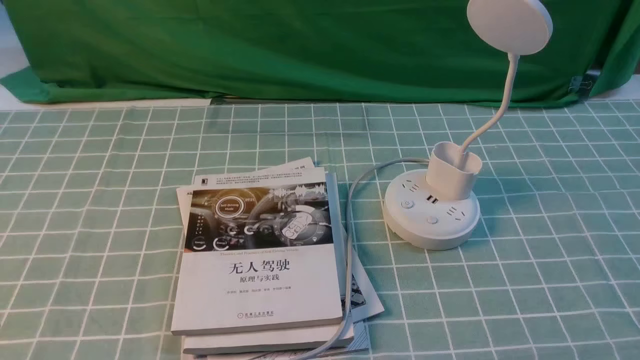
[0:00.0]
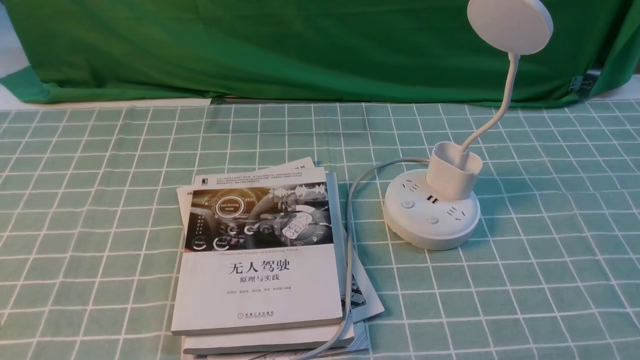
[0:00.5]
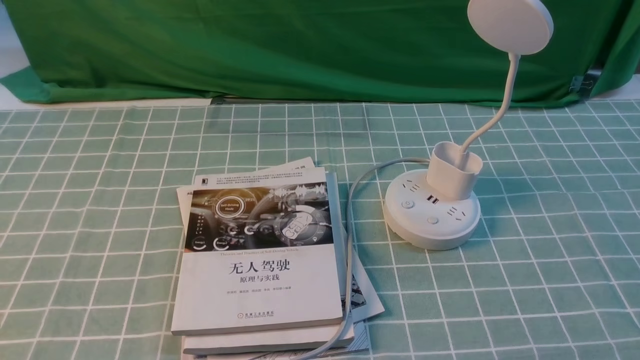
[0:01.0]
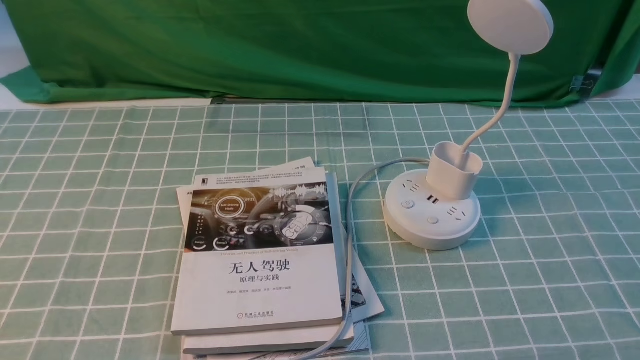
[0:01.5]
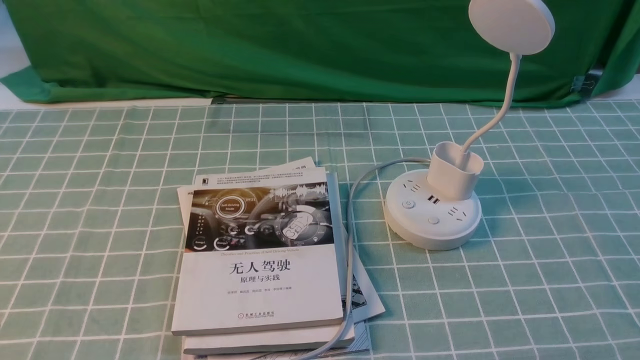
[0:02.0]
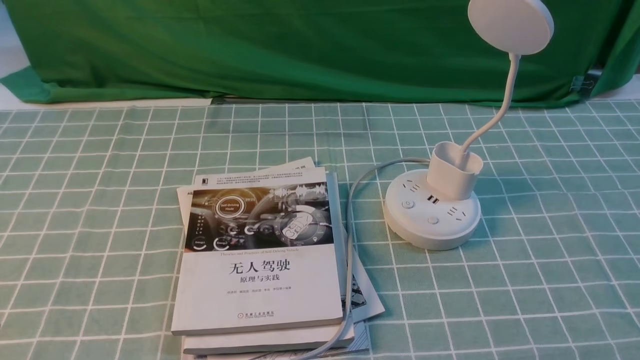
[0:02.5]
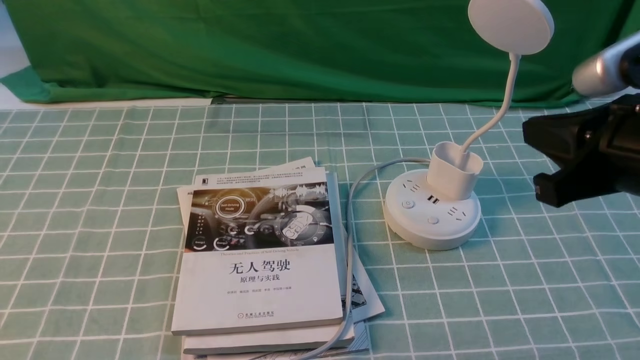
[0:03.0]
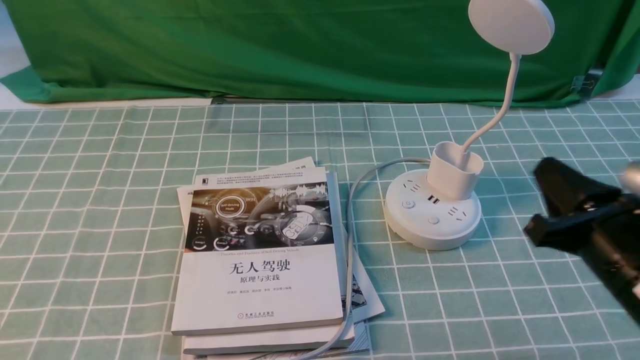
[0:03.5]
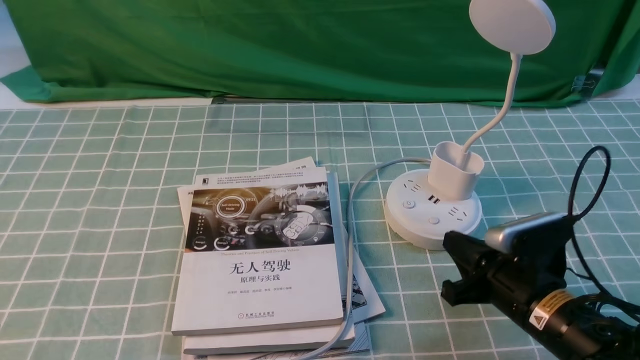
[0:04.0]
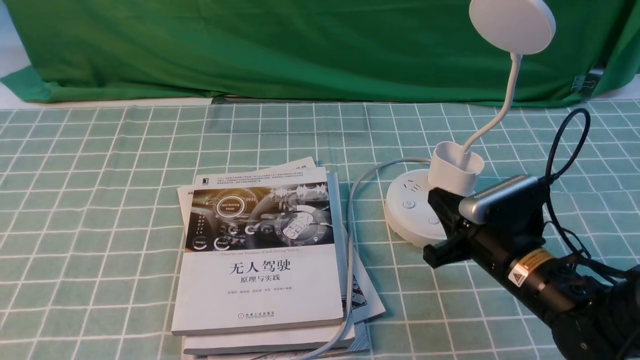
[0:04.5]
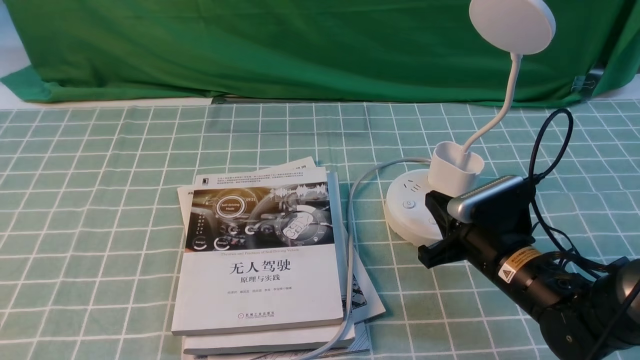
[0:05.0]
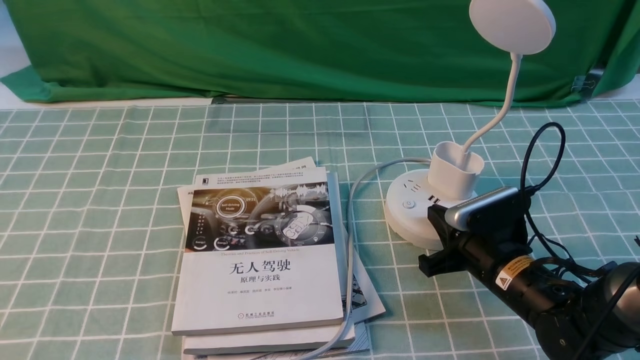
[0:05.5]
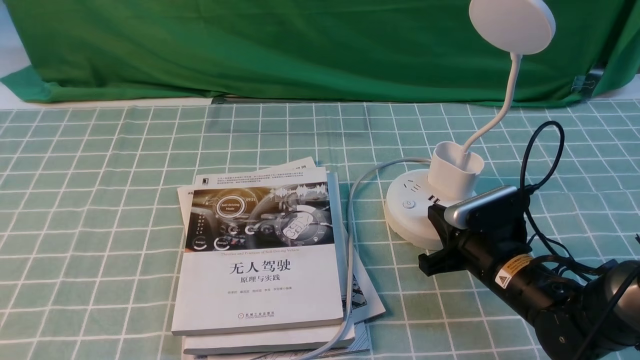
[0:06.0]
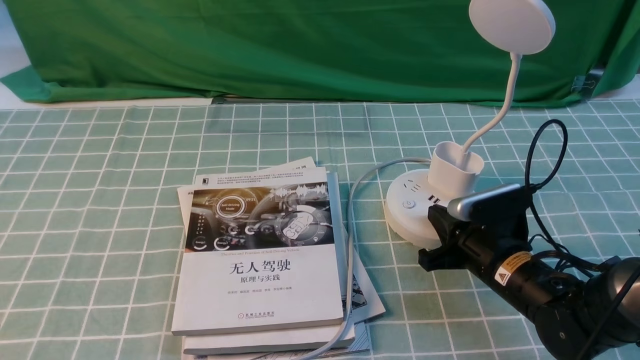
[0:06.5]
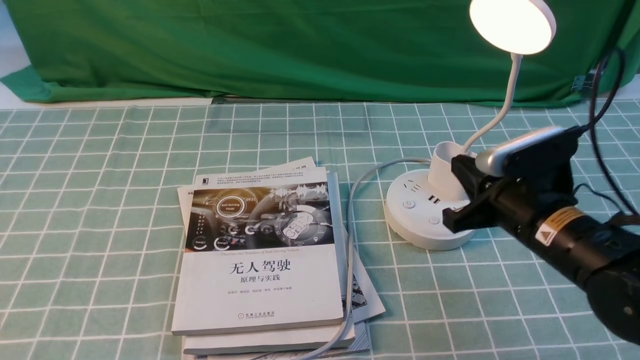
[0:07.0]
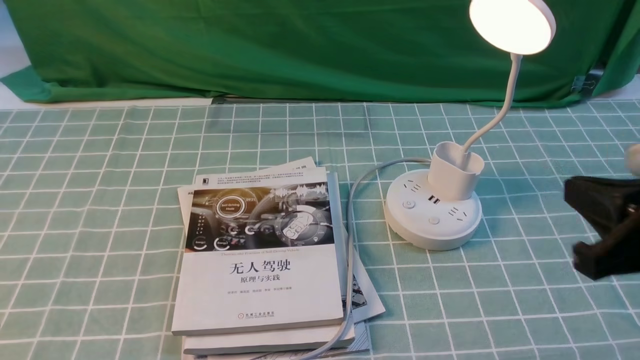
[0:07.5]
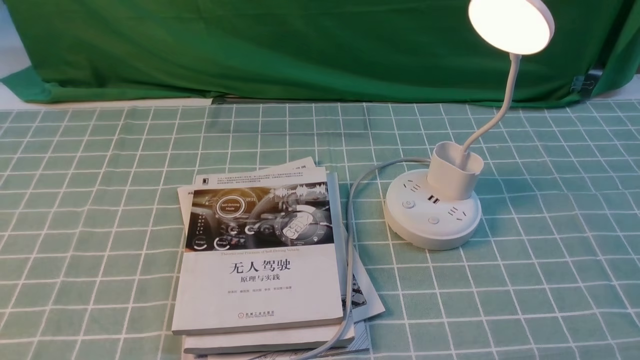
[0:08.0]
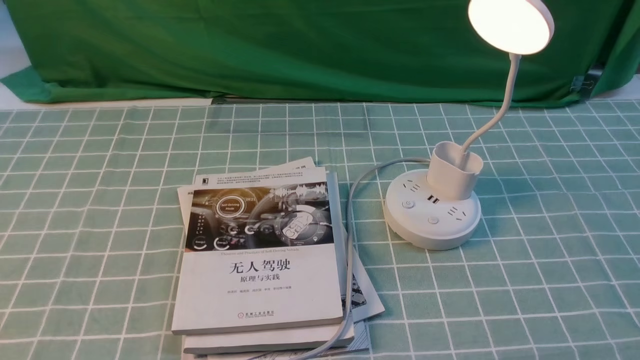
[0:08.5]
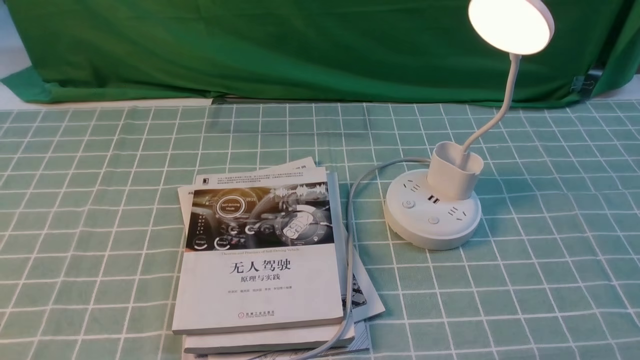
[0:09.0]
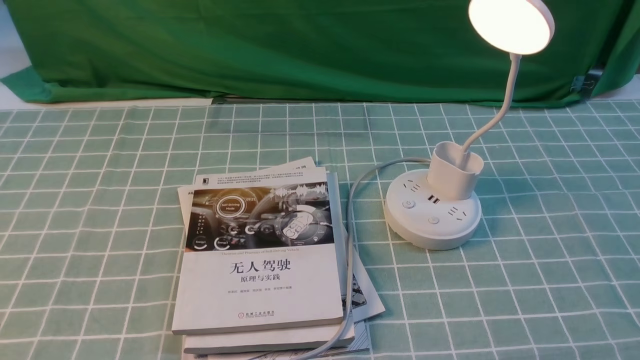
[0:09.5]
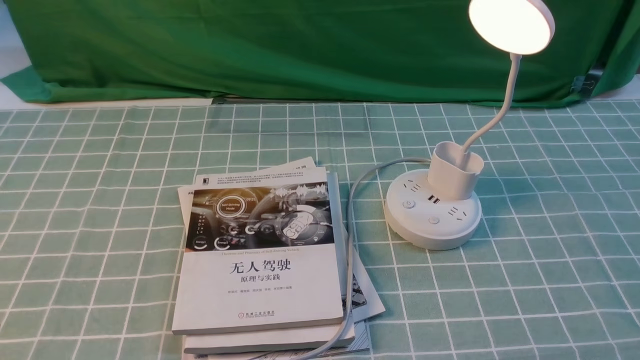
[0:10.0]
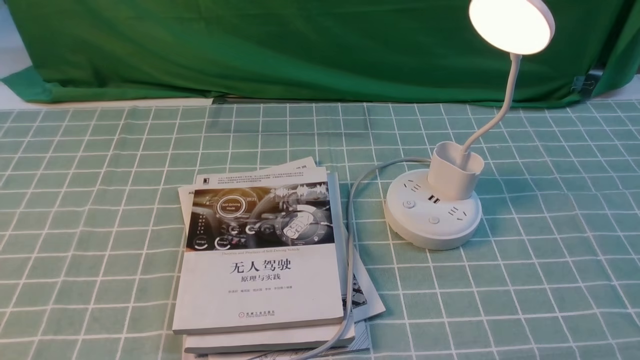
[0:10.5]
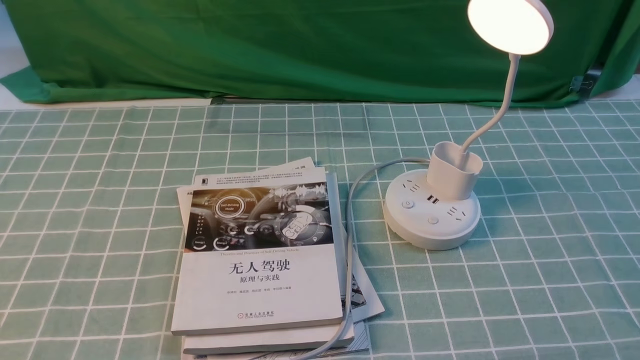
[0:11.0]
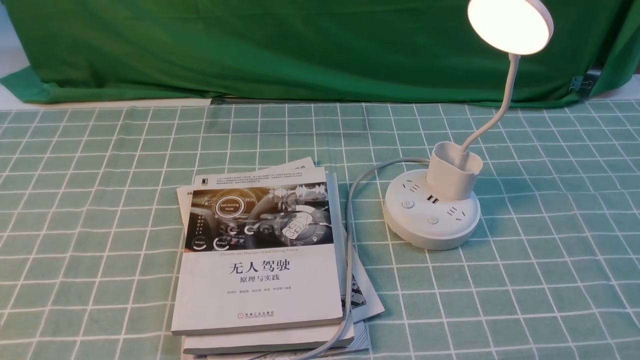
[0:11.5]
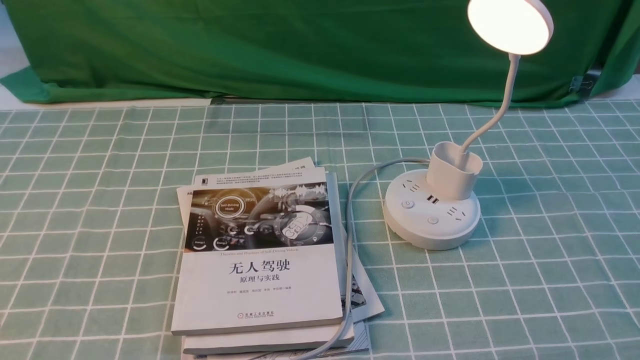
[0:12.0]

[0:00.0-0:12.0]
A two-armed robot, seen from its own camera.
Step, 0:00.0 to 0:06.5: use the right arm to press the button switch on the lamp holder.
0:02.0 to 0:04.0: The right gripper heads forward, downward and to the left, covering about 25 cm, and closes up.
0:04.0 to 0:06.0: The right gripper heads forward, covering some 5 cm.
0:06.0 to 0:08.0: The right gripper is displaced backward, upward and to the right by some 35 cm.
0:10.0 to 0:12.0: The two grippers keep their place.

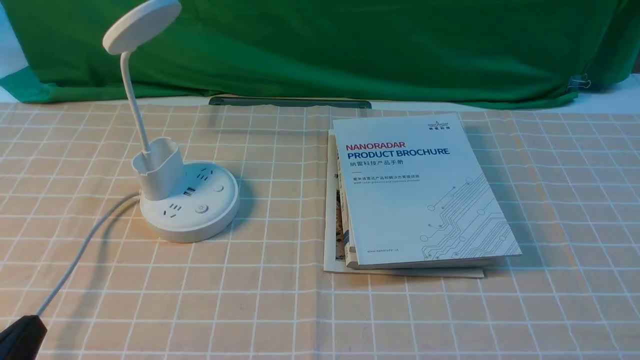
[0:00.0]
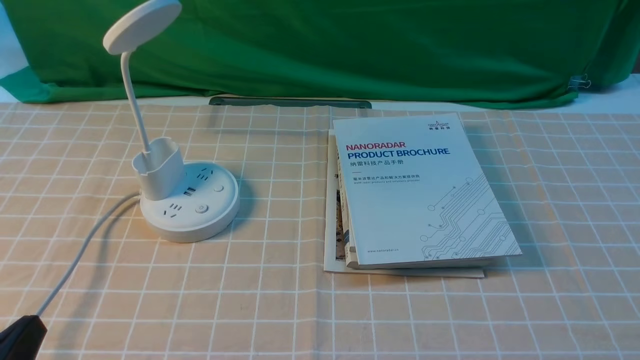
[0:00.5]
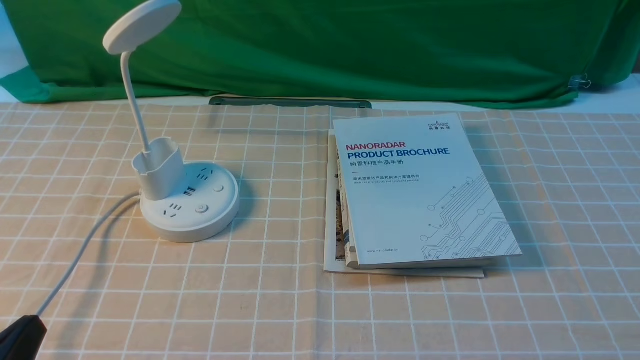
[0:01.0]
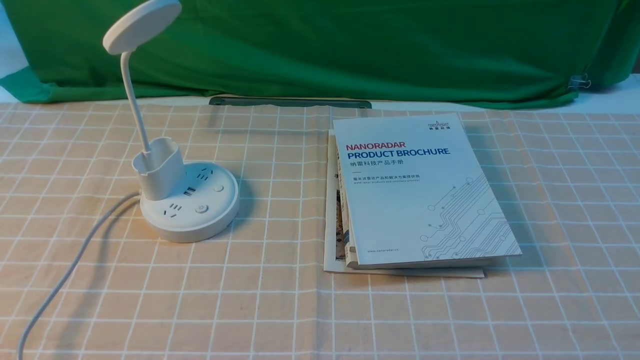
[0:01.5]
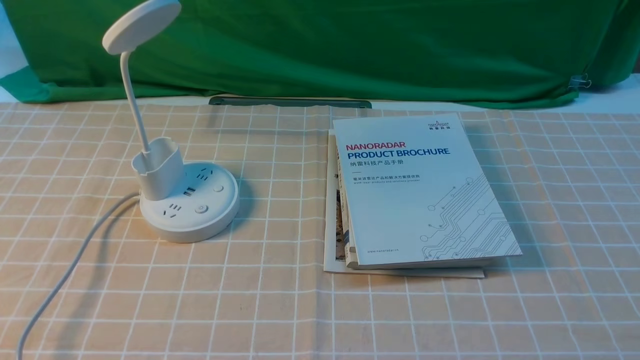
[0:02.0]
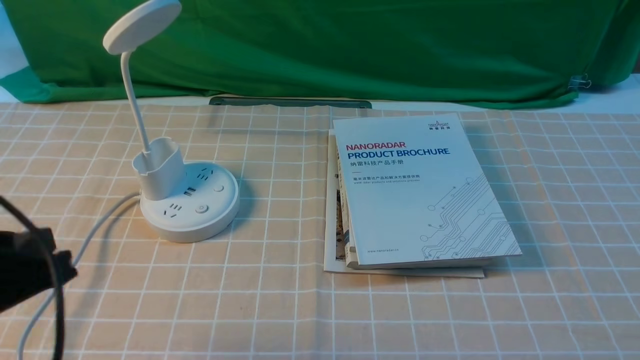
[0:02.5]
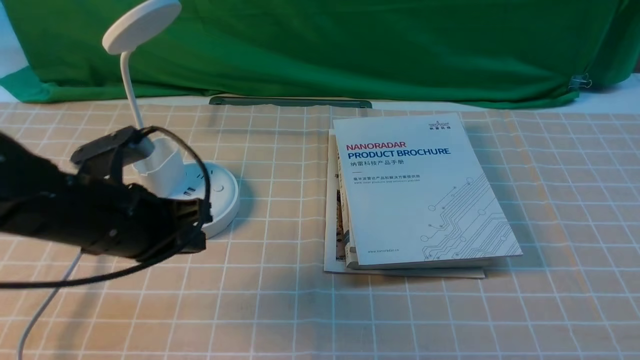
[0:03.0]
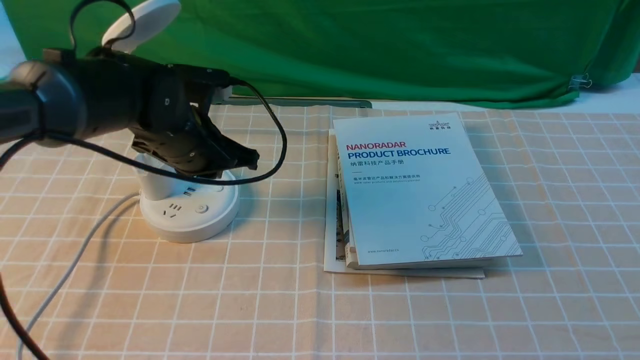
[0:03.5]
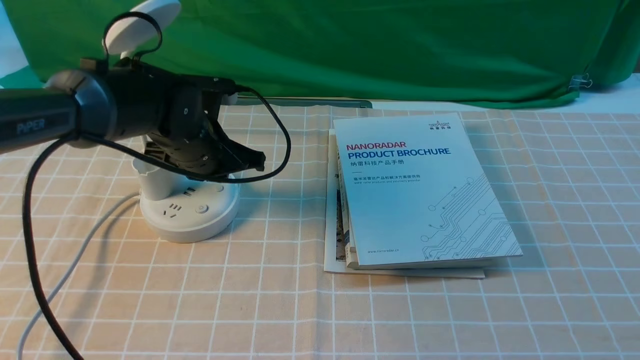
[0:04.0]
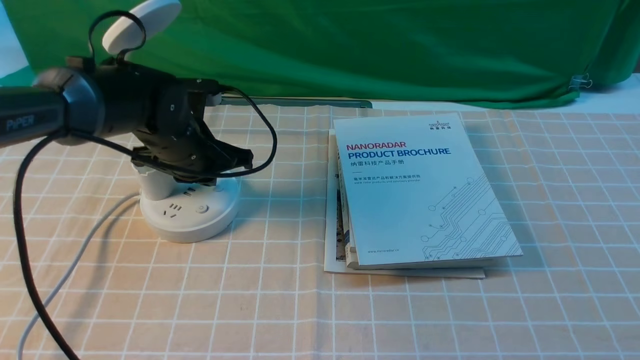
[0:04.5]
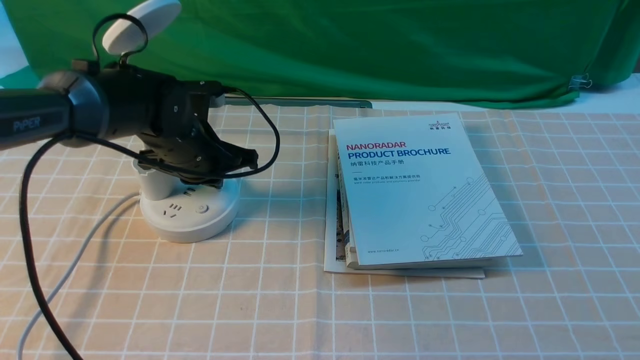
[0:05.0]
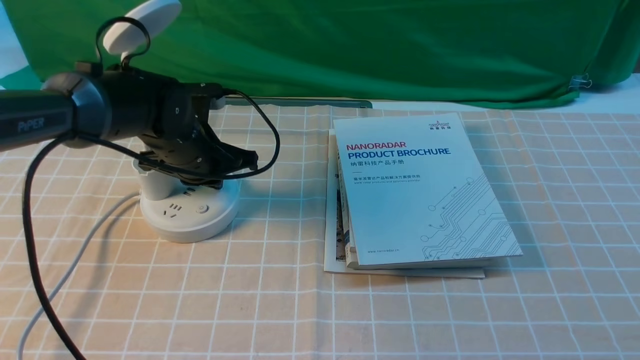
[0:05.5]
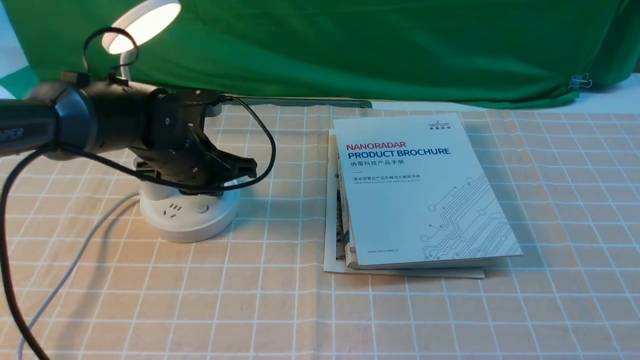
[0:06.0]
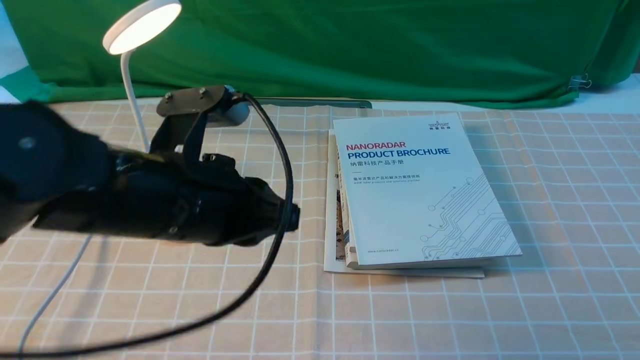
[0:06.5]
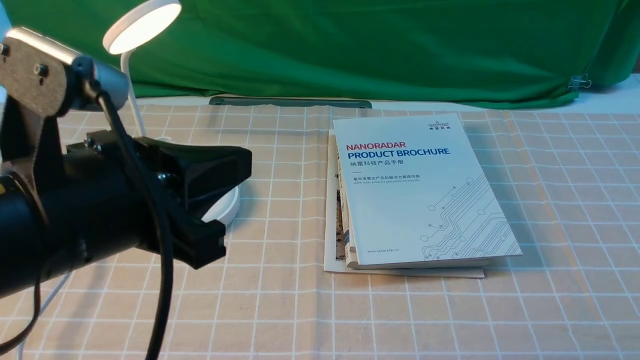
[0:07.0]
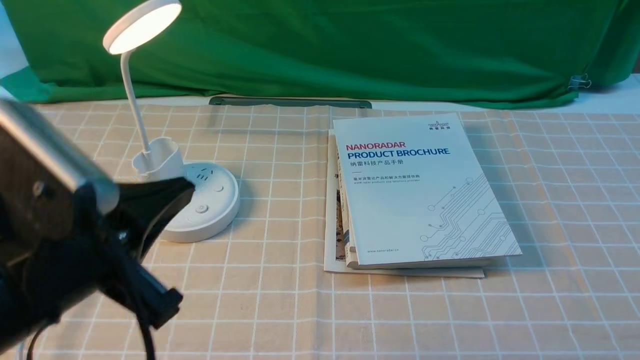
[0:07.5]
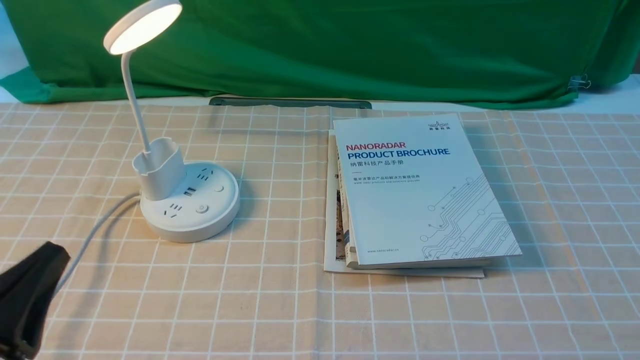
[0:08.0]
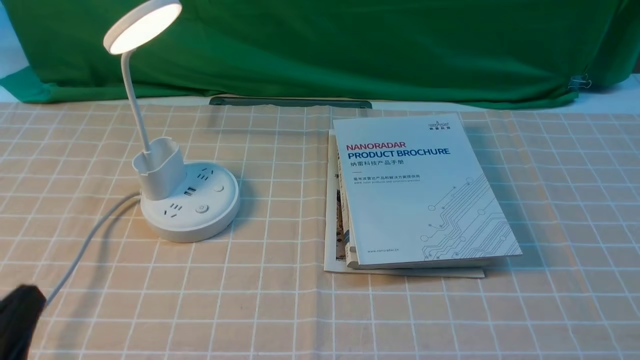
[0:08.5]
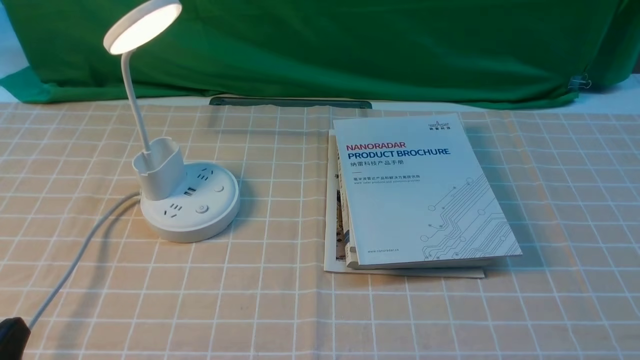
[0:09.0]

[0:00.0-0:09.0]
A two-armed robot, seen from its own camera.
Step, 0:00.0 to 0:06.0: use the left arm to press the button switch on the lamp holder.
0:00.0 to 0:02.0: The left gripper heads upward, covering some 10 cm.
0:02.0 to 0:04.5: The left gripper goes some 35 cm forward.
0:04.5 to 0:07.0: The left gripper shifts about 30 cm backward and upward.
0:07.0 to 0:09.0: The left gripper shifts roughly 20 cm downward, to the left and backward, and opens its fingers.
